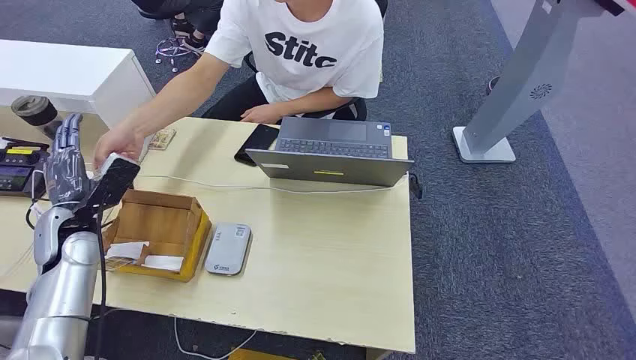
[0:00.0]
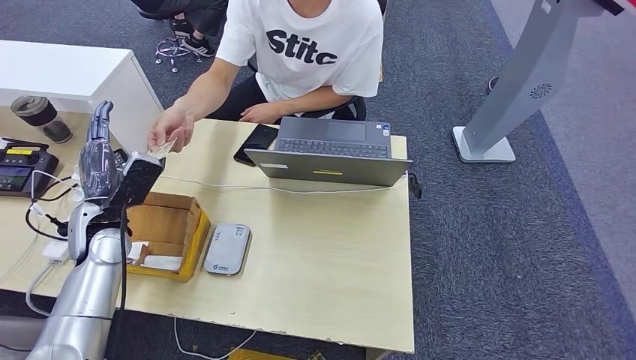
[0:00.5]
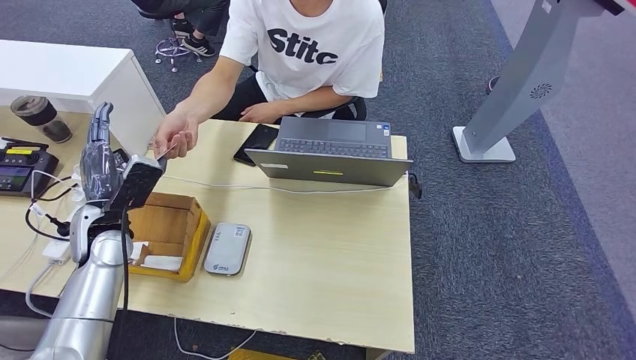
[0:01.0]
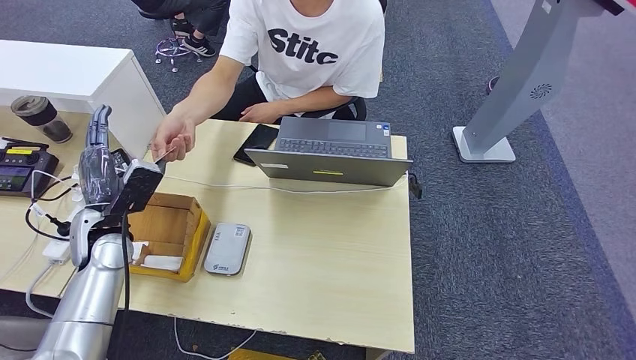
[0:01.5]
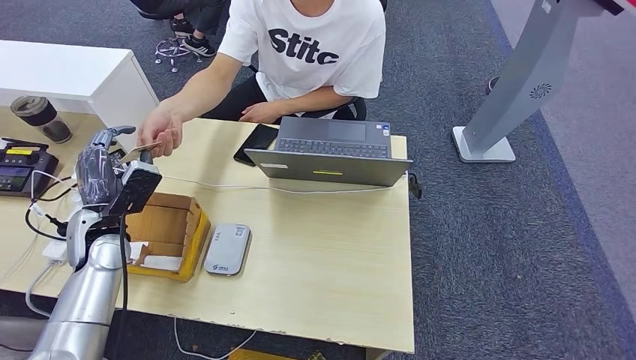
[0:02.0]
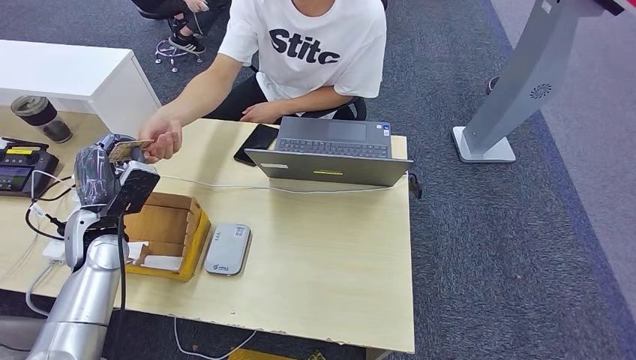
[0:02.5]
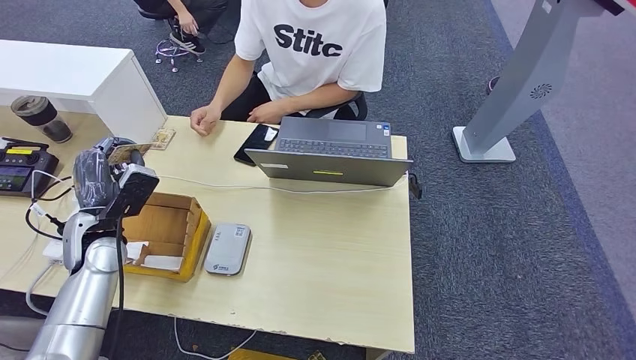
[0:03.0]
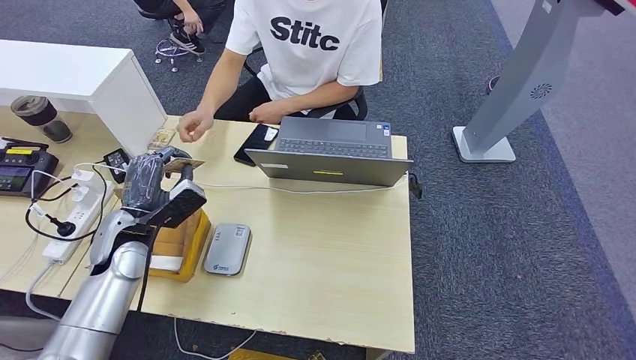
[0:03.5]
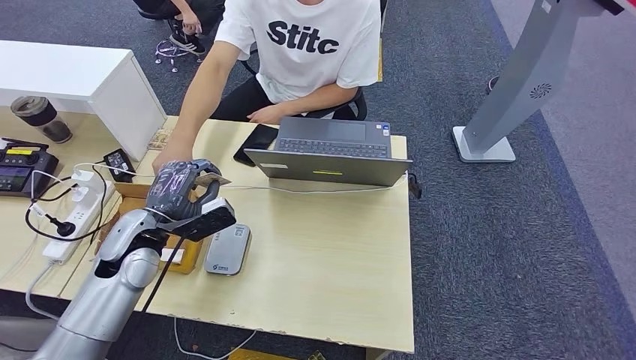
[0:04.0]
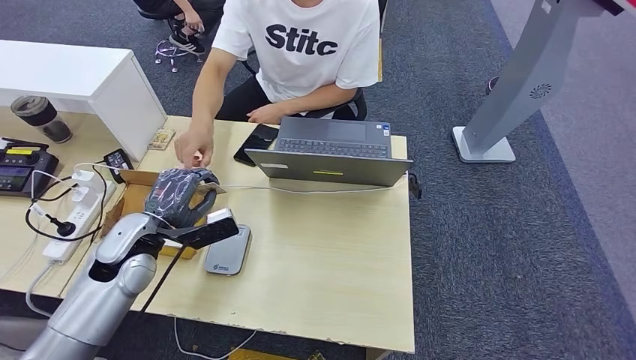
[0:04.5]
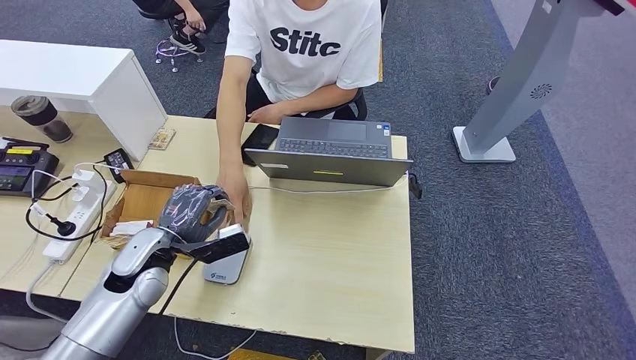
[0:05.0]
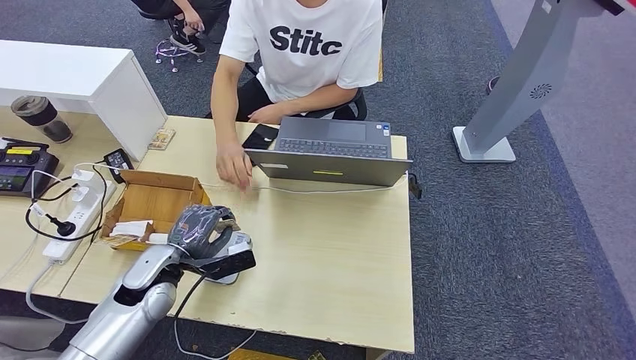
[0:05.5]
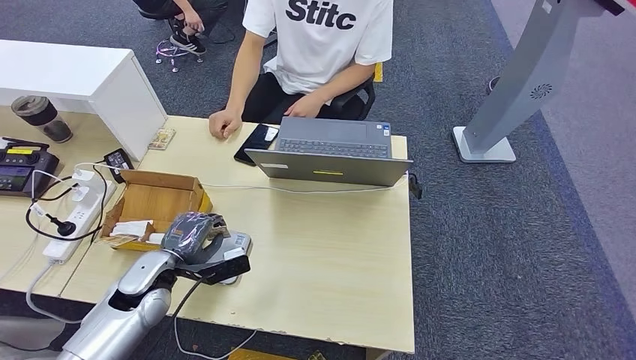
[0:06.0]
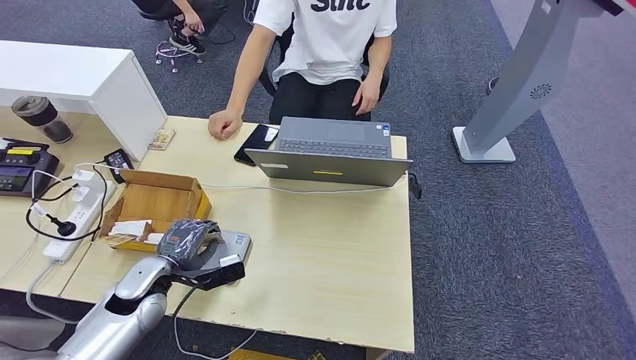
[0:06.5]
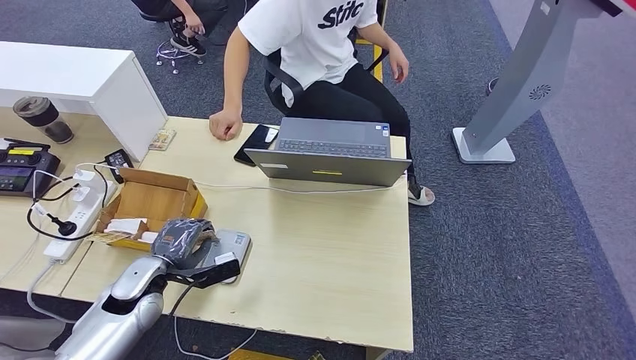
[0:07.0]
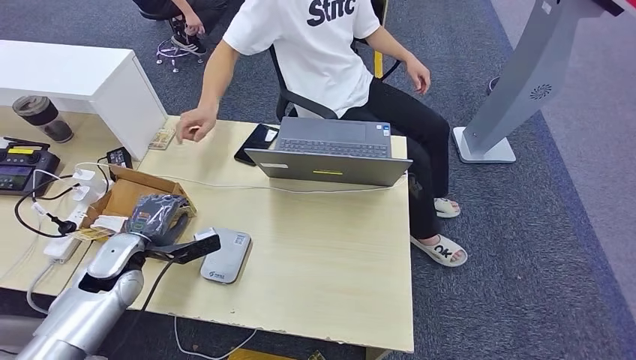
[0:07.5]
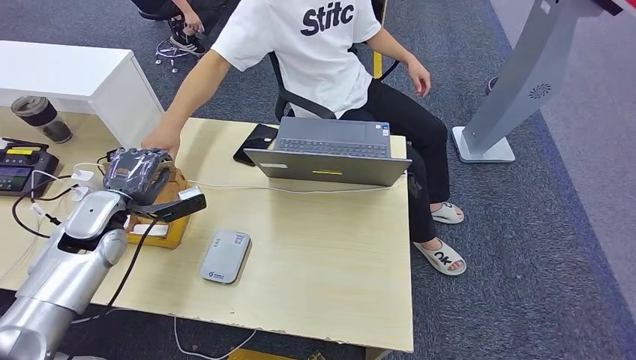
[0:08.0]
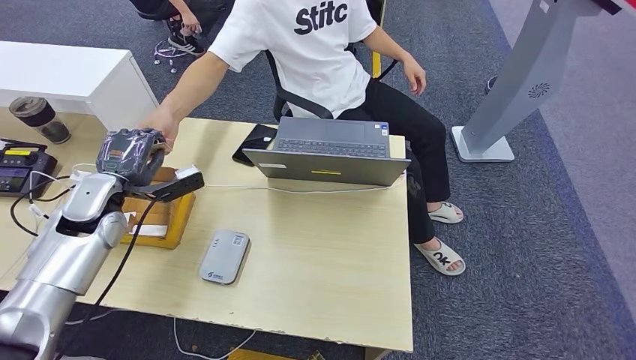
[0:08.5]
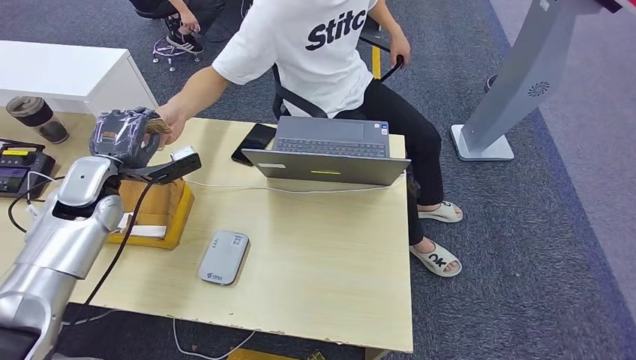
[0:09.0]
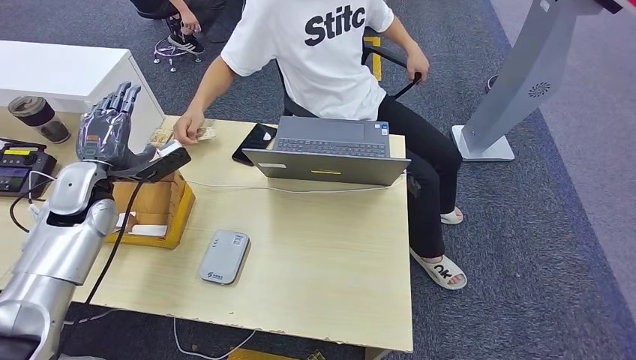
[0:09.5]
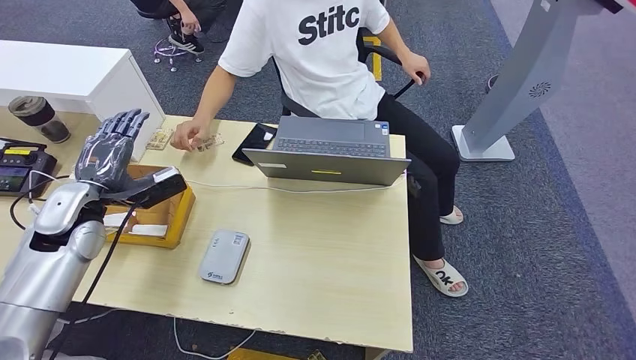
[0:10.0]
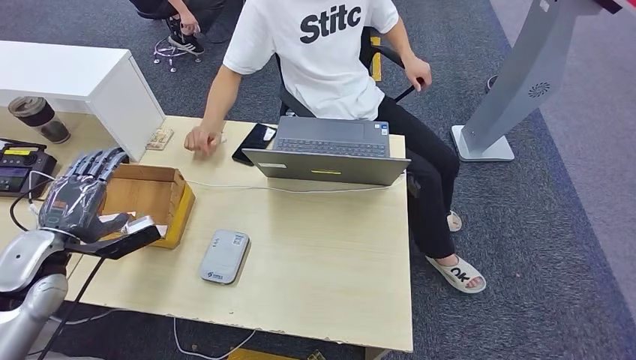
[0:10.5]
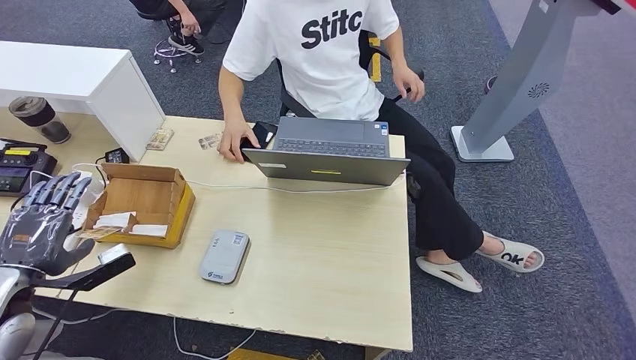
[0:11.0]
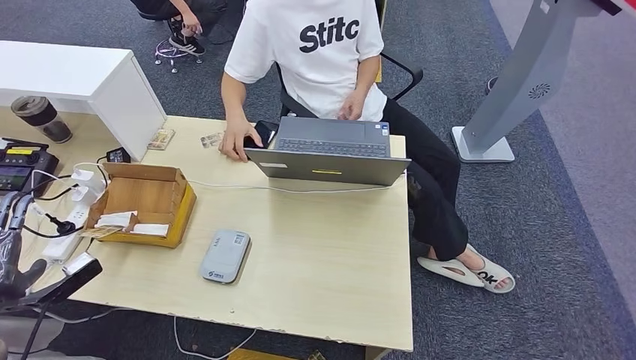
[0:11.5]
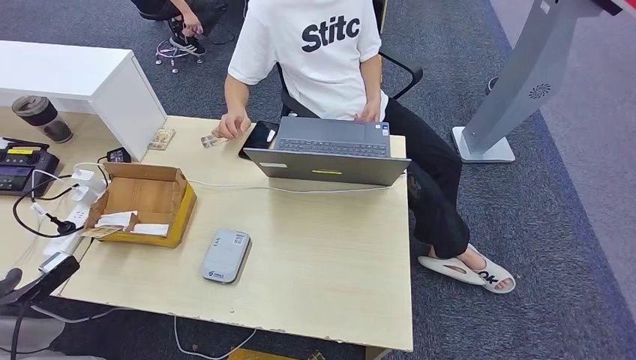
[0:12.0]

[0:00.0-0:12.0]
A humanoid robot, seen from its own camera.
Step, 0:00.0 to 0:02.0: Take the ID card from the person's hand.
Step, 0:02.5 to 0:04.0: Place the ID card on the card reader.
Step, 0:04.5 to 0:09.5: Hand the ID card to the person.
0:02.0 to 0:04.0: The left hand heads to the right, covering roughly 5 cm.
0:04.0 to 0:06.0: The left hand goes roughly 10 cm downward.
0:10.0 to 0:12.0: The left hand moves backward and to the left, approximately 20 cm.

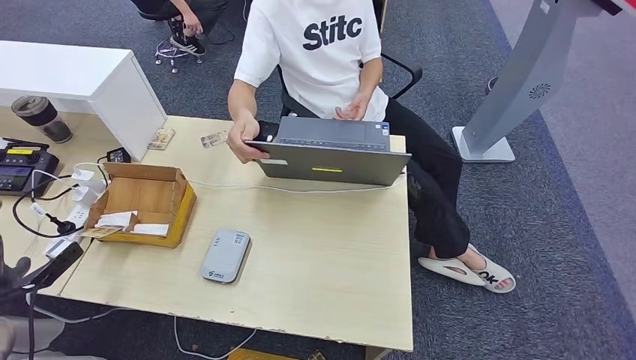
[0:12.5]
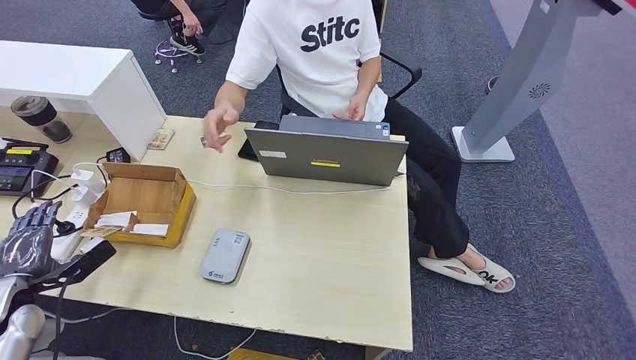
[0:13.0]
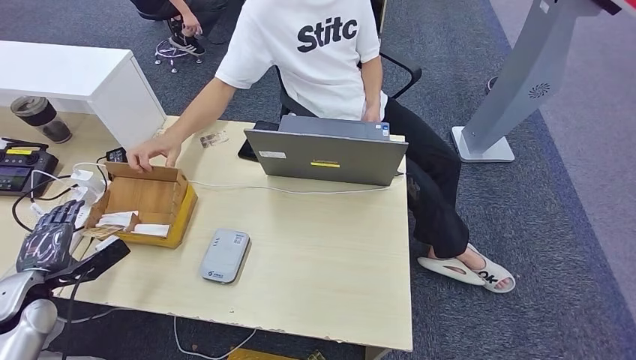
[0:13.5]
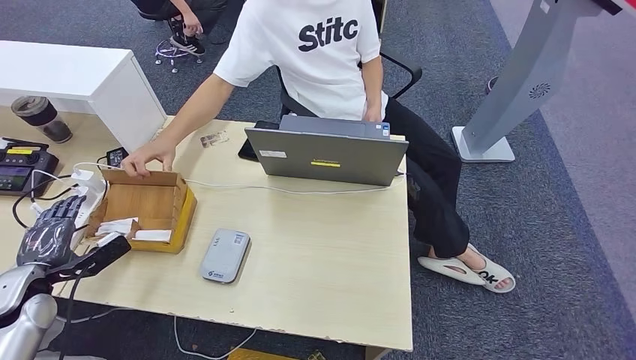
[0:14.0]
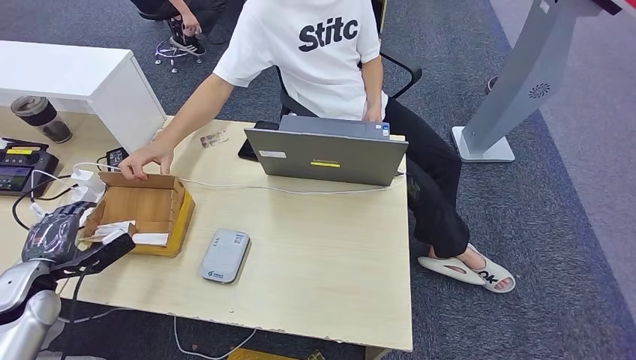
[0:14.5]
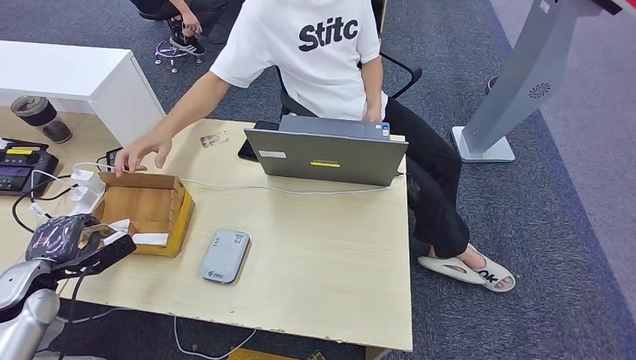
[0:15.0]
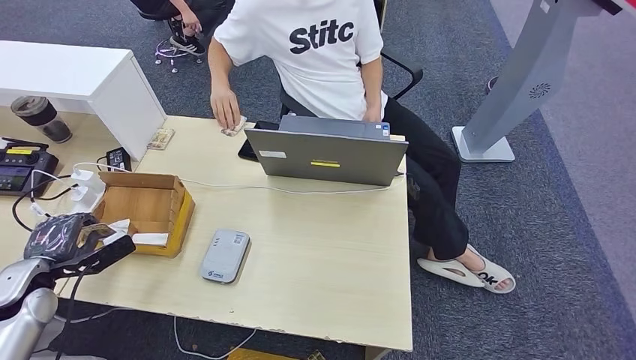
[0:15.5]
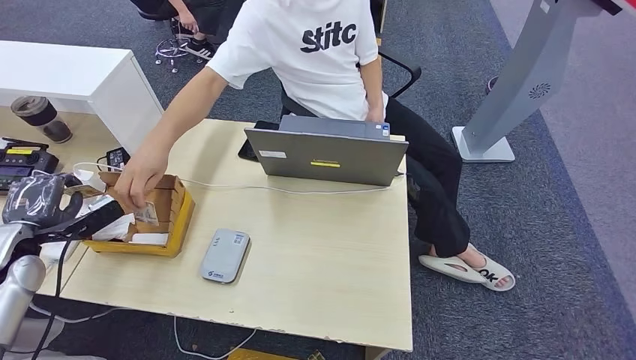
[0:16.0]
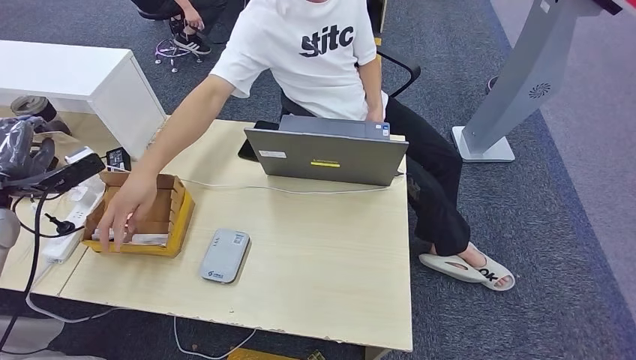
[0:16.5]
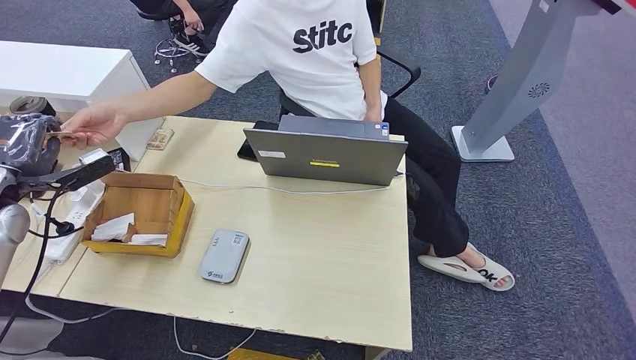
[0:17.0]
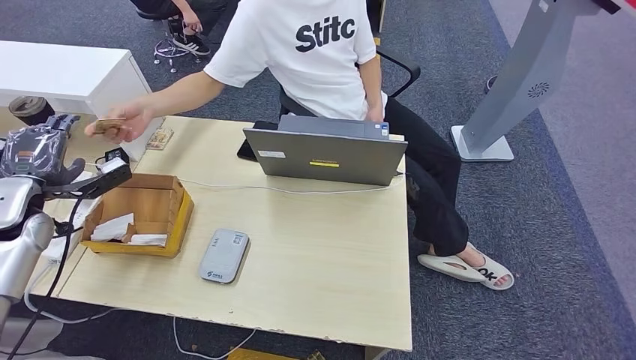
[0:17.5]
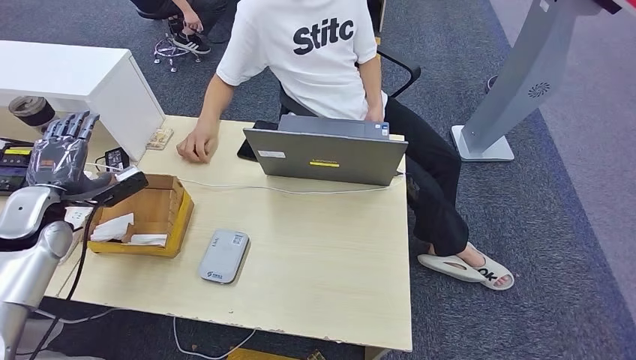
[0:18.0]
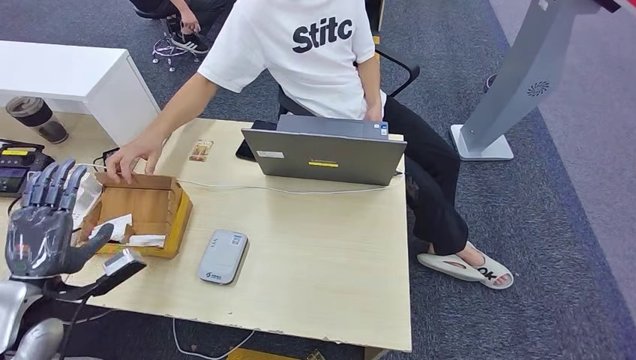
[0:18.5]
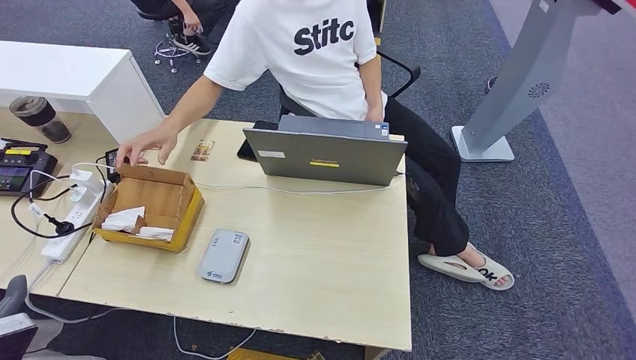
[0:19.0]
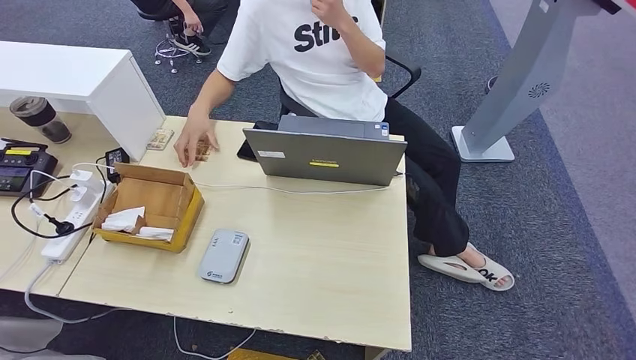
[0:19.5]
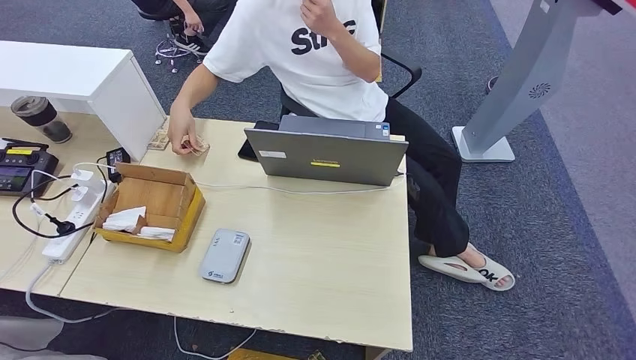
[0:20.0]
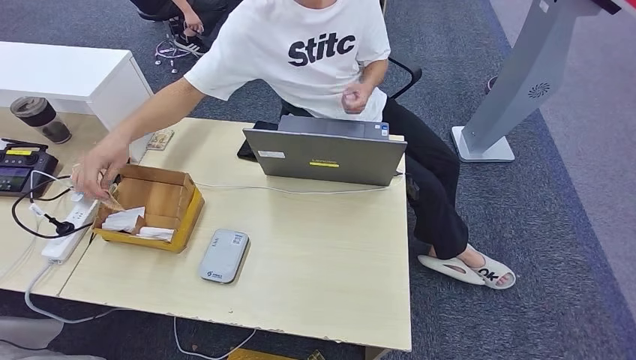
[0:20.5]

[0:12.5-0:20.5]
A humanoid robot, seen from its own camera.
Step, 0:12.5 to 0:15.5: Pick up the room key from the key card box.
Step, 0:16.0 to 0:20.5: Hand the room key to the person.
0:12.5 to 0:14.5: The left hand is displaced forward by approximately 5 cm.
0:14.5 to 0:16.5: The left hand goes about 15 cm upward and forward.
0:16.5 to 0:18.5: The left hand moves backward, to the right and downward, about 20 cm.
0:18.5 to 0:20.5: The left hand shifts some 40 cm downward, backward and to the right.
